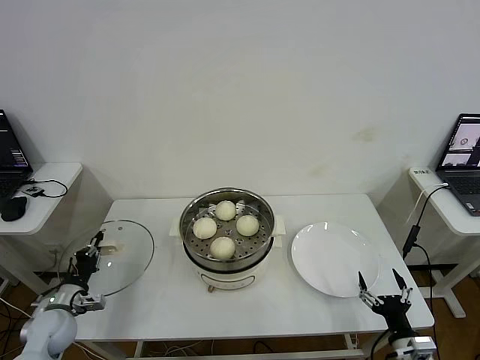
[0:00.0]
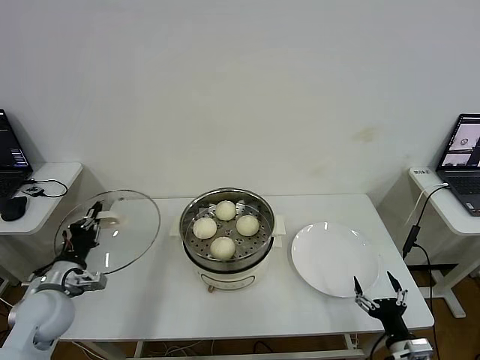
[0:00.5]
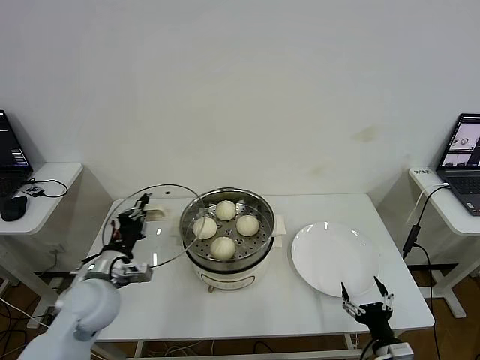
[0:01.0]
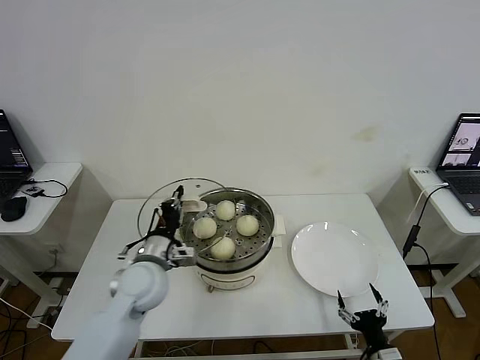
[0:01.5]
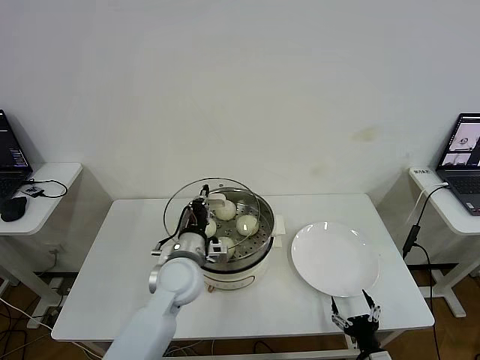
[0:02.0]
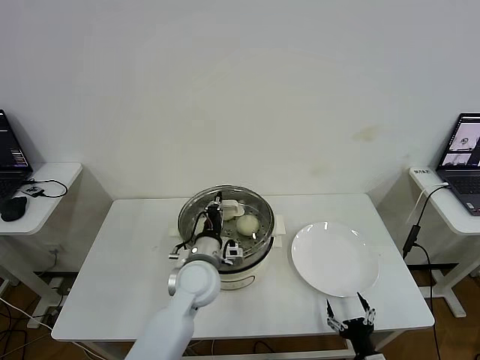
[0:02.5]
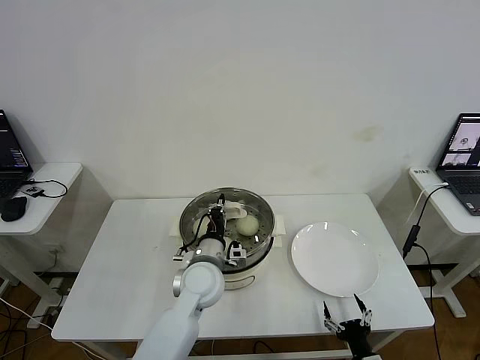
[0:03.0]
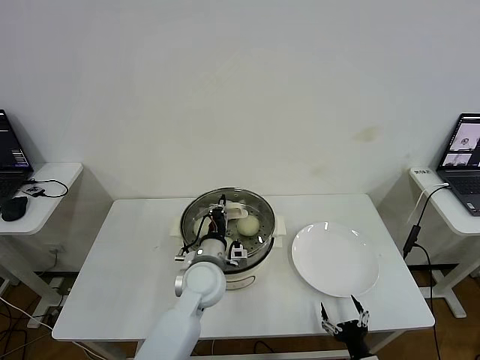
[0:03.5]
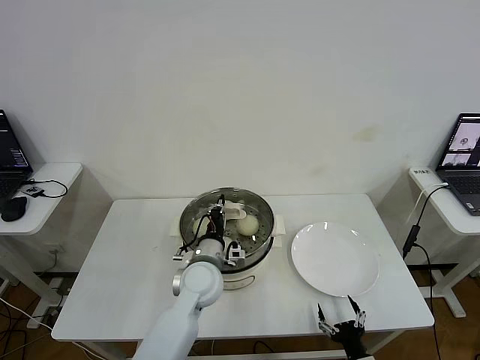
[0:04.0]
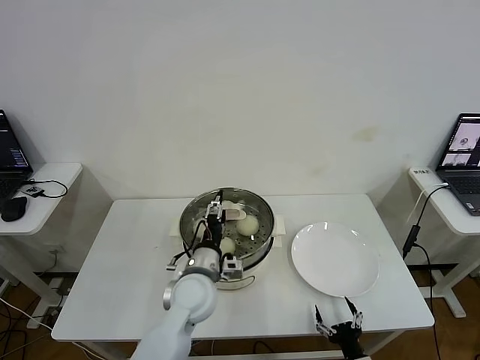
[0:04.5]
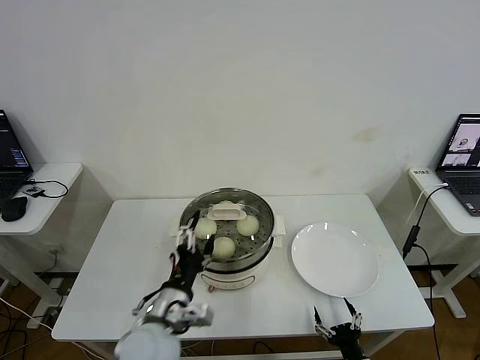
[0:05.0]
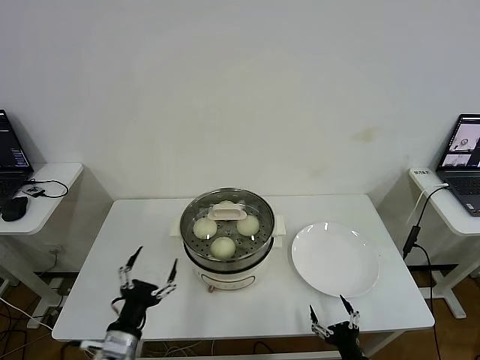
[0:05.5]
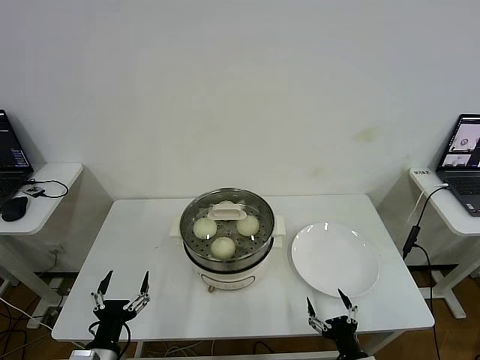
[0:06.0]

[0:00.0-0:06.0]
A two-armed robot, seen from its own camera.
Step, 0.5 to 3.5 s: Place the pot lid on the steamer with left gripper.
0.0 to 2.0 s: The left gripper moves to the right and upward, about 35 cm; the right gripper moves downward, some 5 cm.
2.0 to 4.0 s: The left gripper shifts by approximately 5 cm.
4.0 to 6.0 s: The left gripper shifts some 30 cm backward and to the left, and opens.

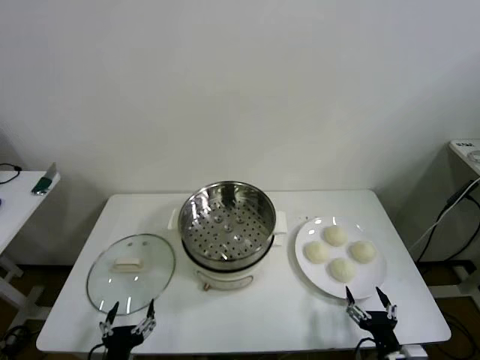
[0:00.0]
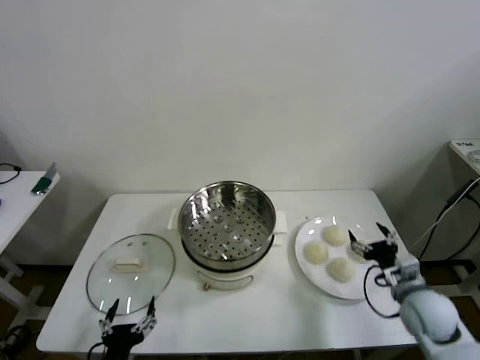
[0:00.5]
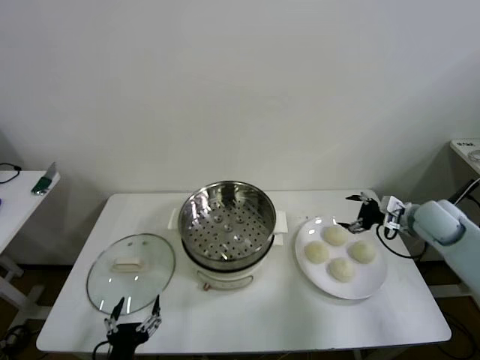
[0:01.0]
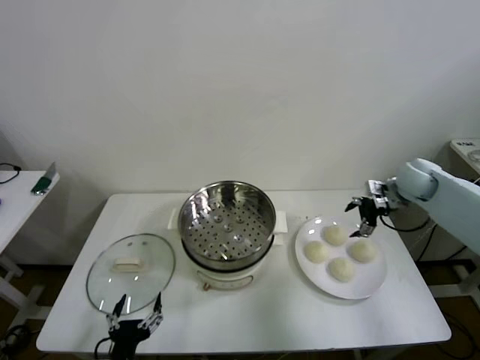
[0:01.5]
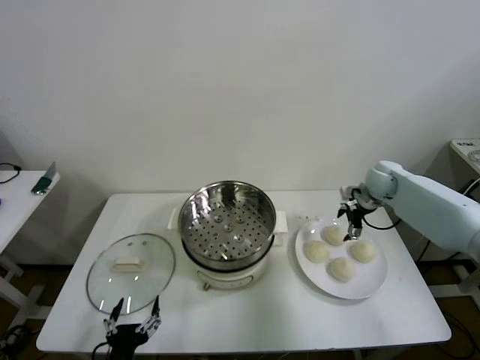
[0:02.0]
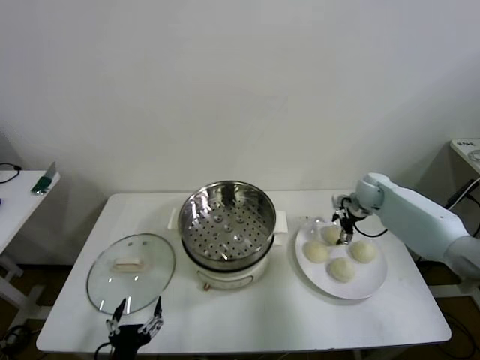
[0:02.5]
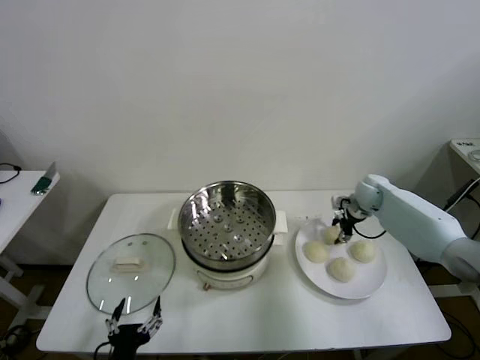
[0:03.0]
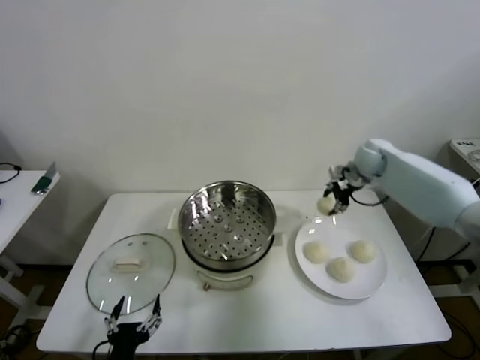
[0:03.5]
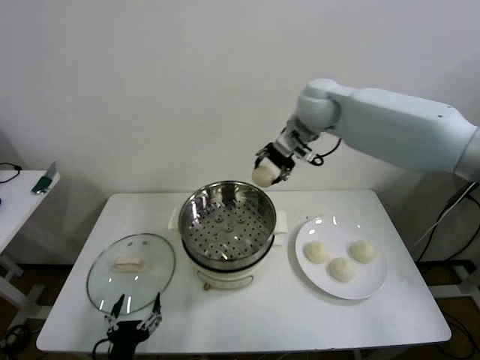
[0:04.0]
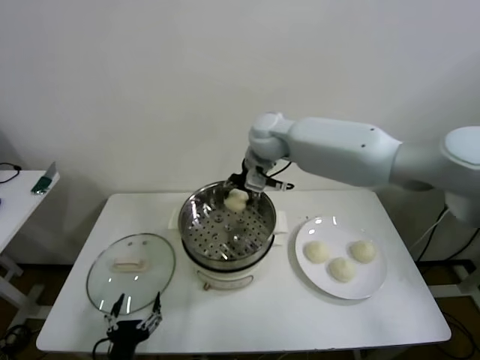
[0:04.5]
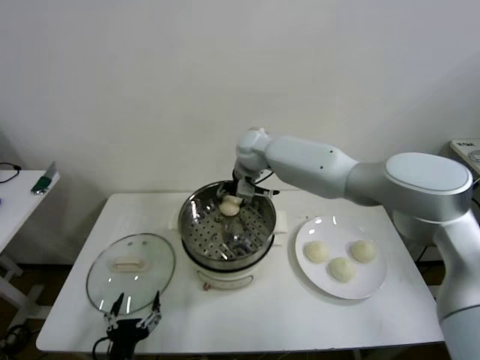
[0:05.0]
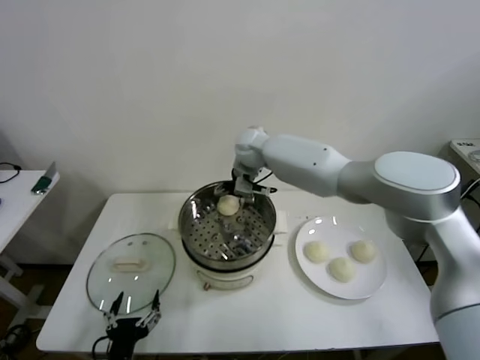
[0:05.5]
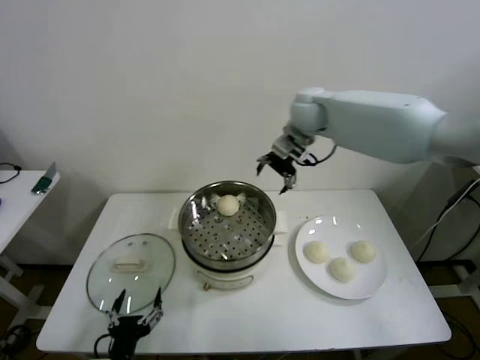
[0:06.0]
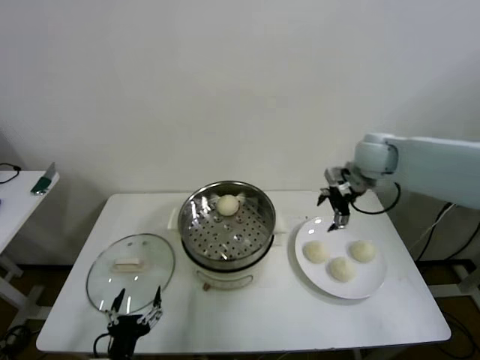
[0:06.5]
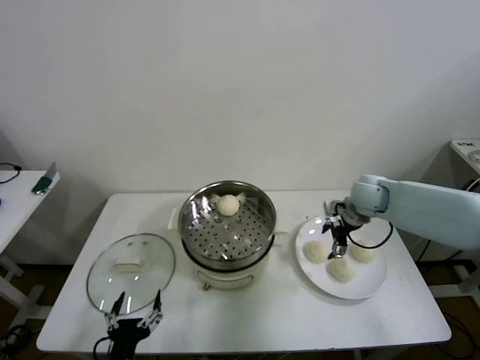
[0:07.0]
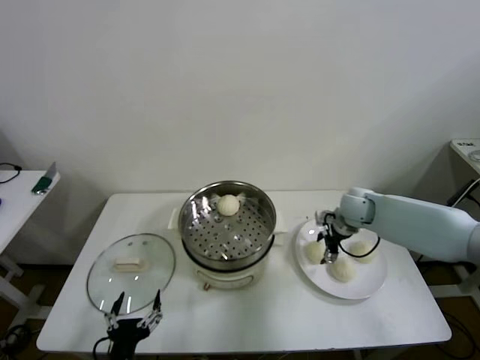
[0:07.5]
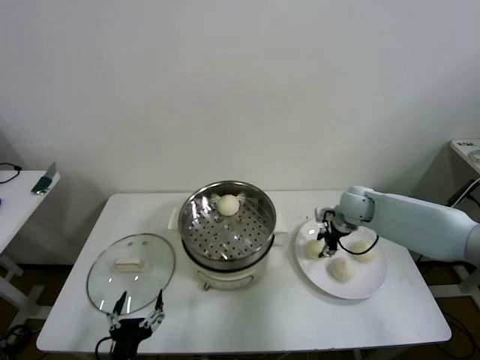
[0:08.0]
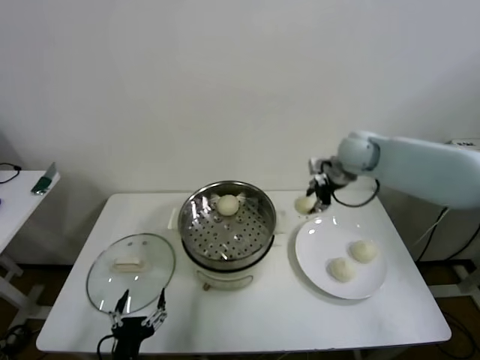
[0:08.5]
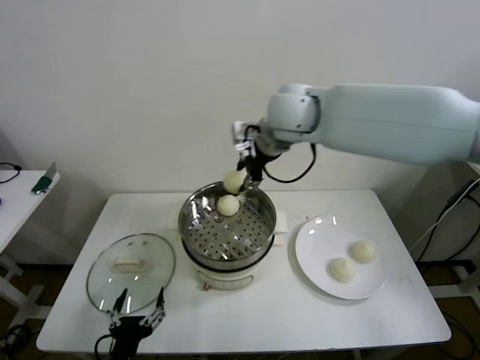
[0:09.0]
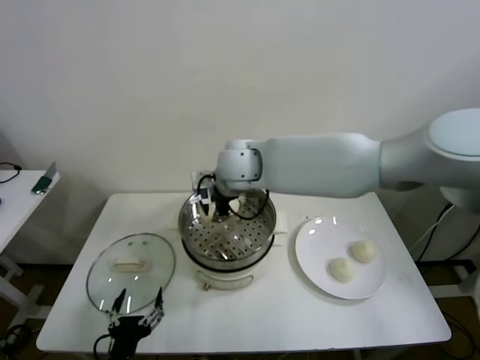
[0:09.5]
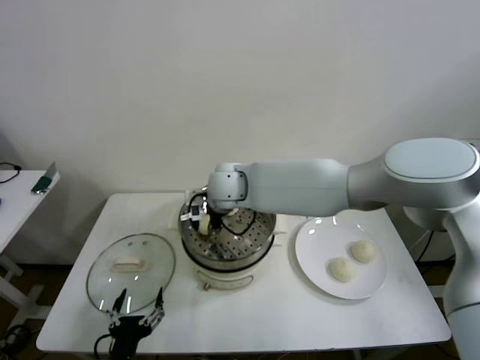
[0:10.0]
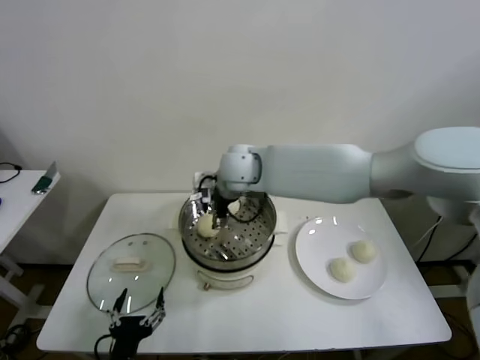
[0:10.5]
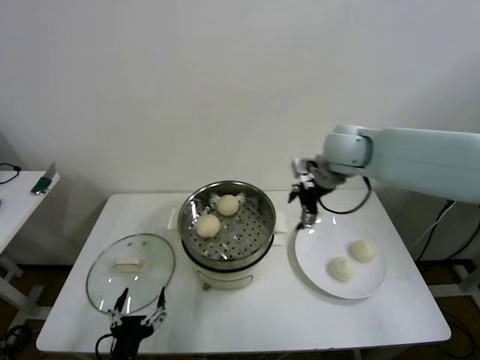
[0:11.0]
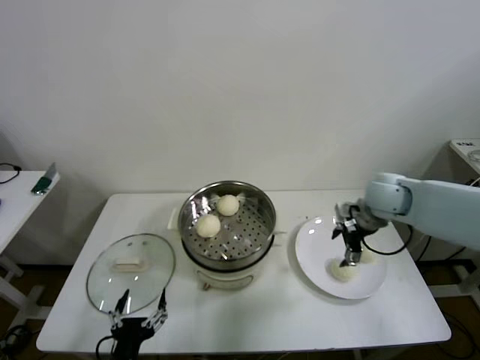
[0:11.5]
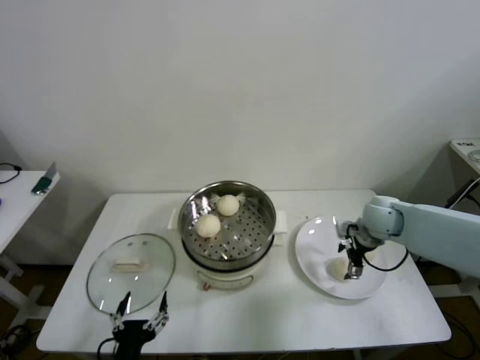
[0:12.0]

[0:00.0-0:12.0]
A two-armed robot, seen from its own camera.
Step, 0.0 to 2.5 s: Grasp the baozi in the plate with right gripper.
Step, 3.0 to 5.0 s: Place the baozi on the steamer with right gripper.
Step, 5.5 to 7.5 s: Grasp the baozi in the plate with right gripper.
Step, 8.0 to 10.0 s: Place the baozi on the steamer with right gripper.
2.0 to 4.0 s: The right gripper shifts roughly 35 cm to the left and upward, and closes up.
4.0 to 6.0 s: The right gripper goes roughly 10 cm to the right, and opens.
6.0 to 8.0 s: The right gripper moves downward and to the right, about 25 cm, and closes its fingers.
8.0 to 10.0 s: The right gripper goes roughly 35 cm to the left.
10.0 to 12.0 s: The right gripper shifts about 35 cm to the right, and opens up.

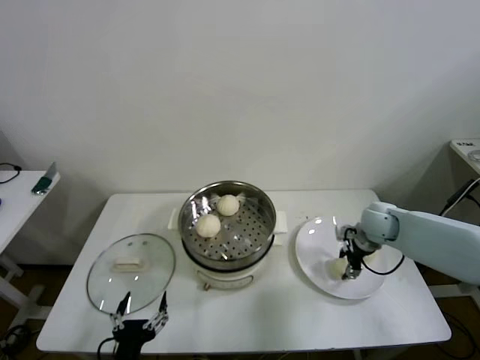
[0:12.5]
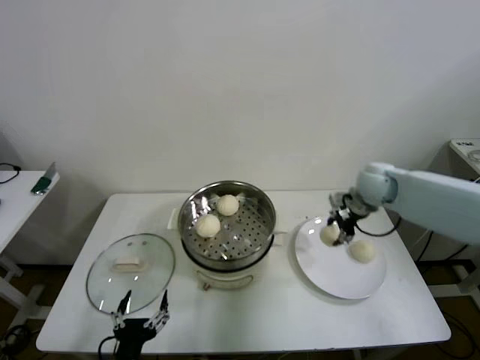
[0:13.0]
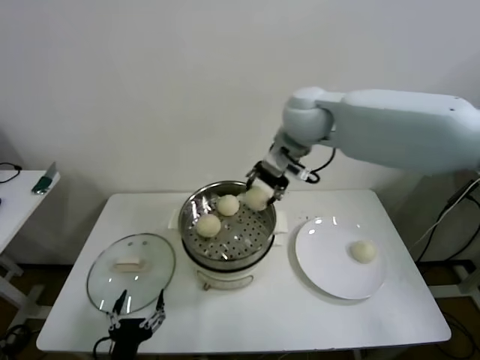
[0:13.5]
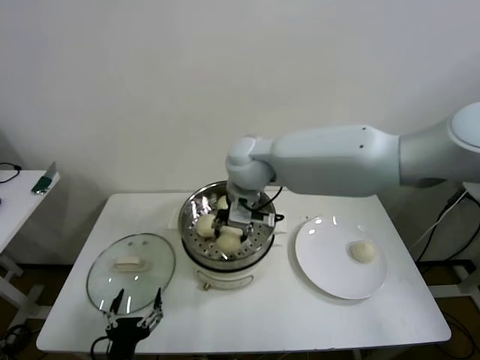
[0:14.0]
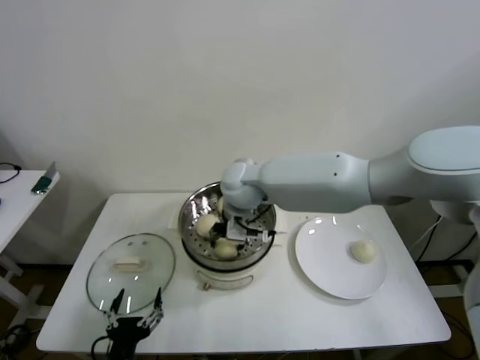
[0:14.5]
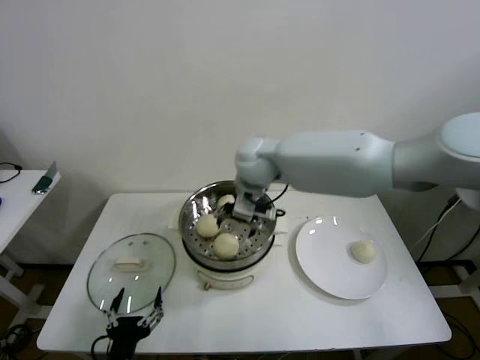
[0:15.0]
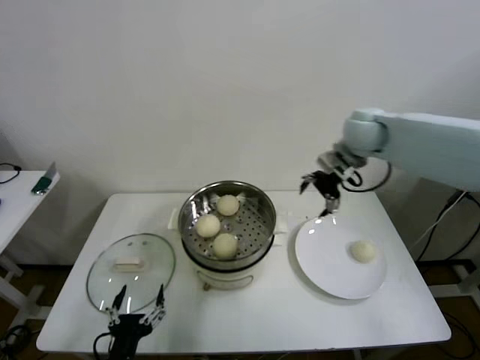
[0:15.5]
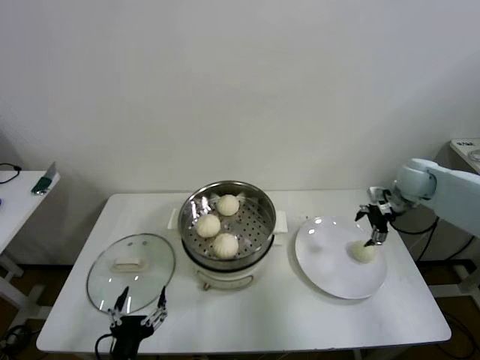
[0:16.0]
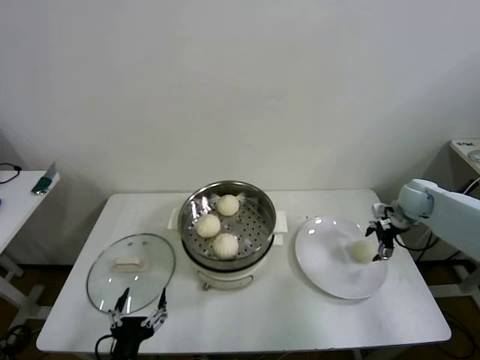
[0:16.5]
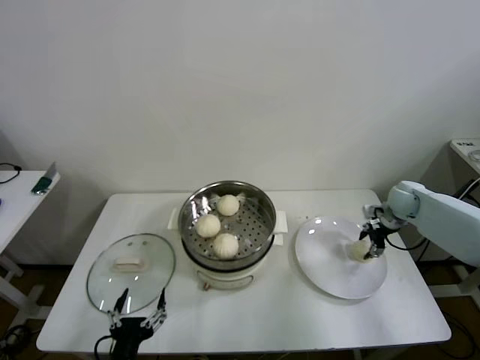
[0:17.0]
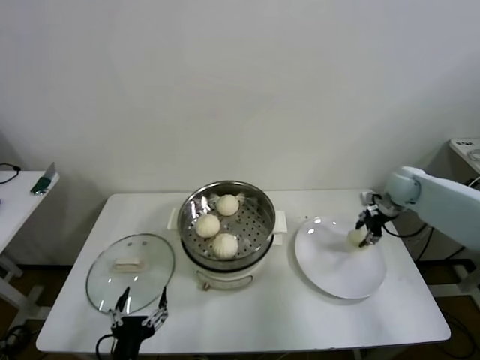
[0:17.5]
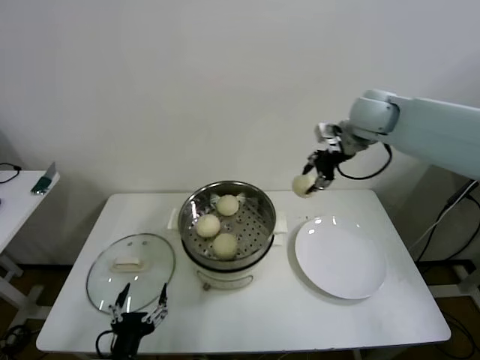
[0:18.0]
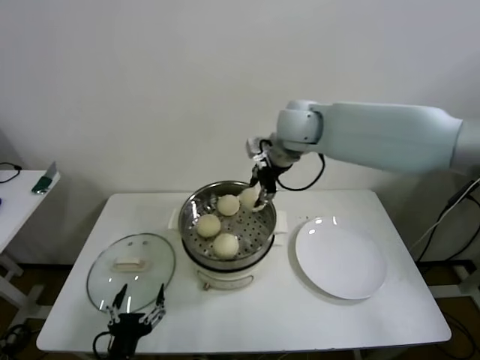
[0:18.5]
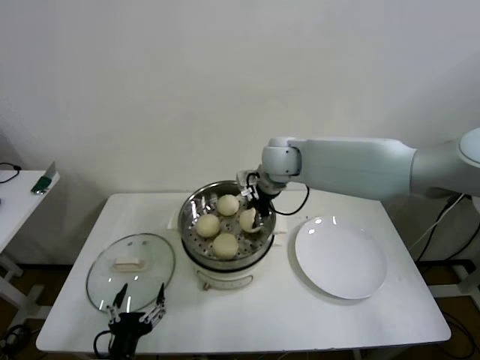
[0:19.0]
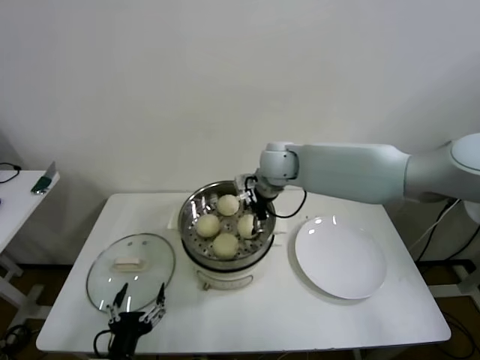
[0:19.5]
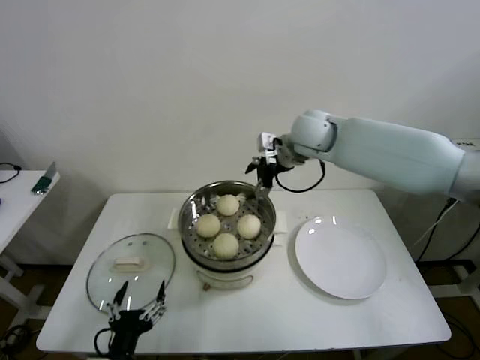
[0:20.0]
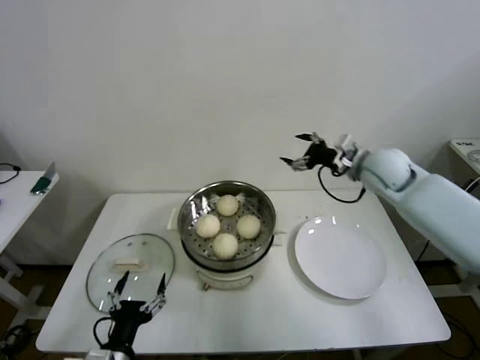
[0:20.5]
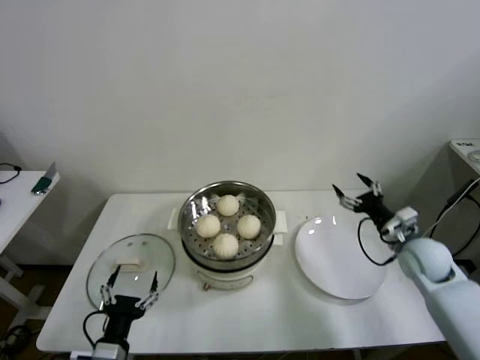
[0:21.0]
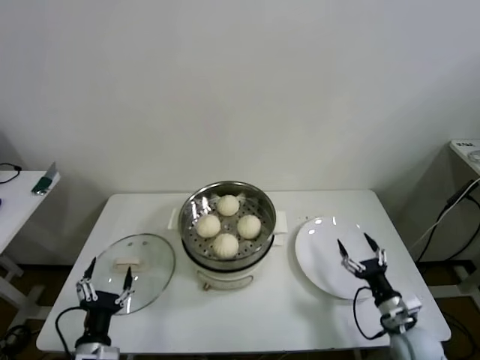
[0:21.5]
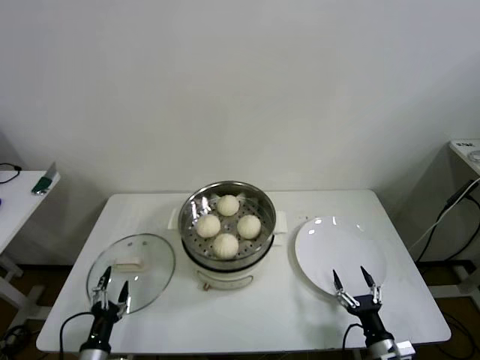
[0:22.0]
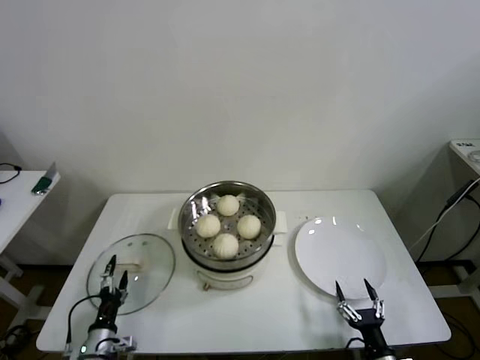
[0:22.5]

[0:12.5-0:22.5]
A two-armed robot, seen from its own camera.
Step, 13.0 to 14.5 s: Place the baozi on the steamer with right gripper.
Step, 15.0 to 17.0 s: Grasp the baozi in the plate with right gripper.
Step, 17.5 to 19.0 s: Place the baozi on the steamer with right gripper.
12.5 to 14.5 s: The right gripper shifts about 35 cm to the left.
14.5 to 16.5 s: The right gripper shifts some 40 cm to the right, and opens its fingers.
16.5 to 18.5 s: The right gripper is displaced to the left and upward by about 40 cm, and closes.
18.5 to 20.5 s: The right gripper is displaced to the right and downward by approximately 20 cm, and opens.
20.5 to 22.5 s: The right gripper moves backward and downward, approximately 50 cm. Meanwhile the left gripper is displaced downward, to the left and forward by some 20 cm.
